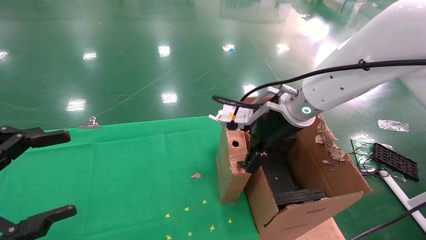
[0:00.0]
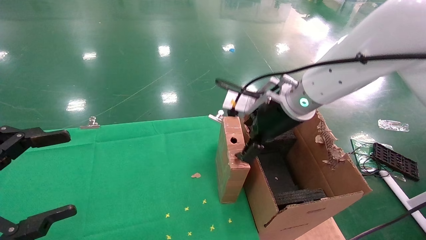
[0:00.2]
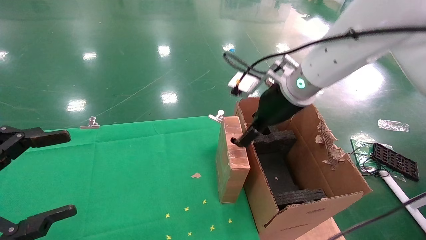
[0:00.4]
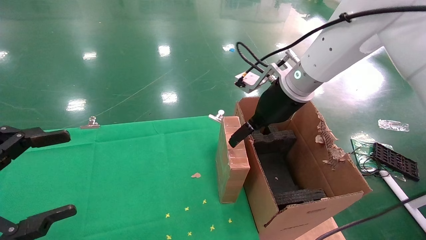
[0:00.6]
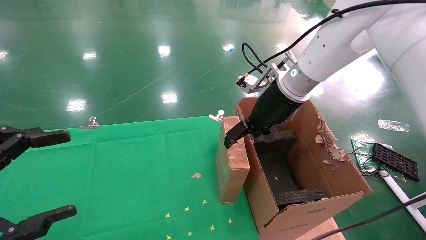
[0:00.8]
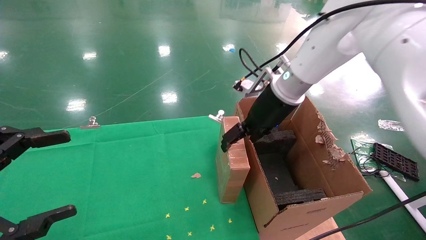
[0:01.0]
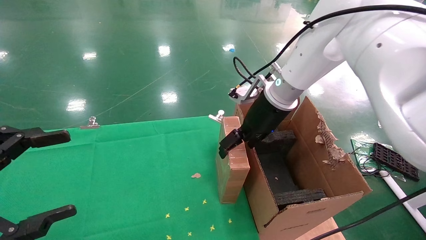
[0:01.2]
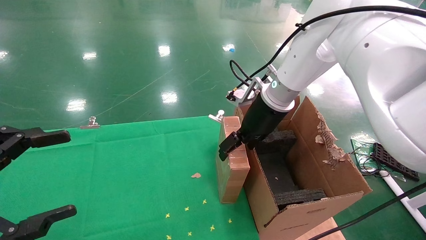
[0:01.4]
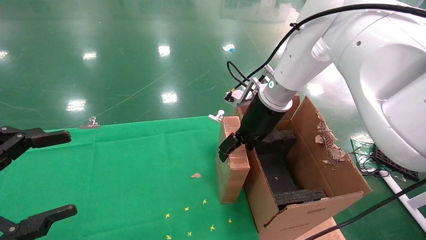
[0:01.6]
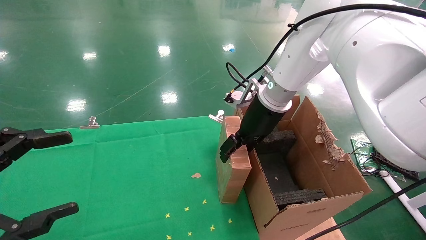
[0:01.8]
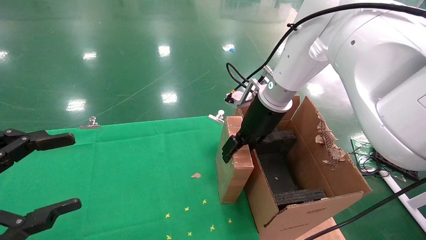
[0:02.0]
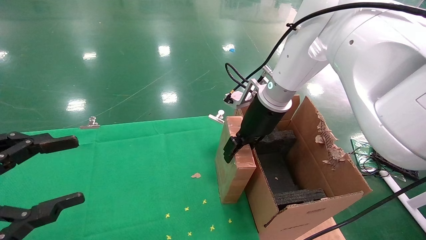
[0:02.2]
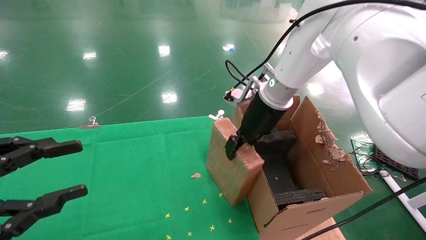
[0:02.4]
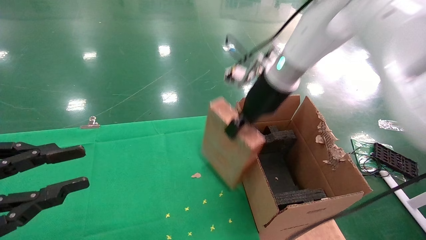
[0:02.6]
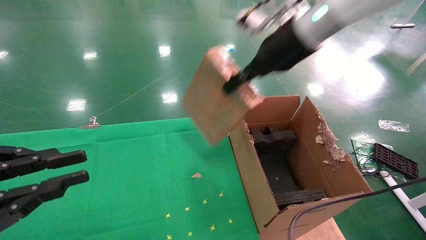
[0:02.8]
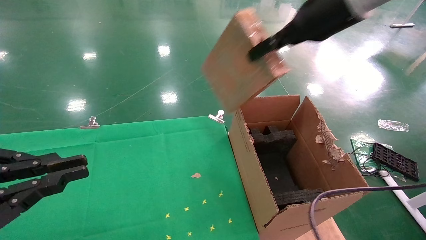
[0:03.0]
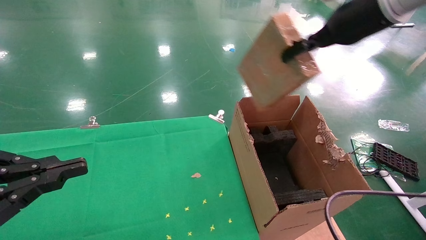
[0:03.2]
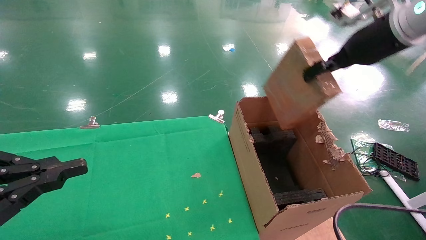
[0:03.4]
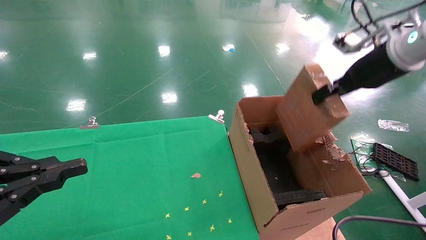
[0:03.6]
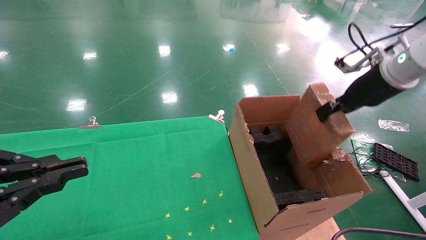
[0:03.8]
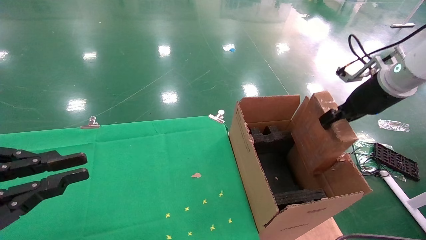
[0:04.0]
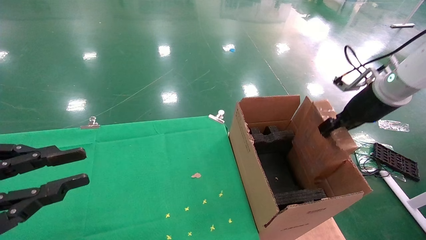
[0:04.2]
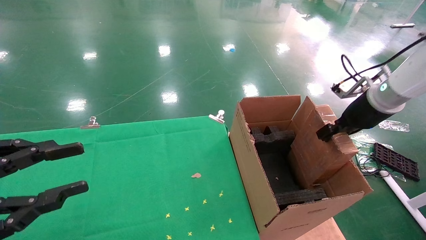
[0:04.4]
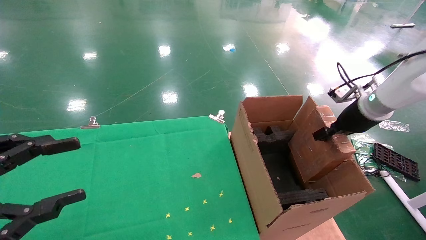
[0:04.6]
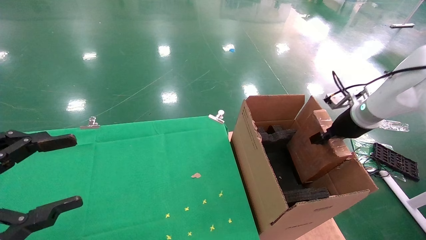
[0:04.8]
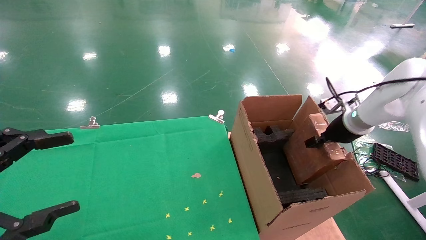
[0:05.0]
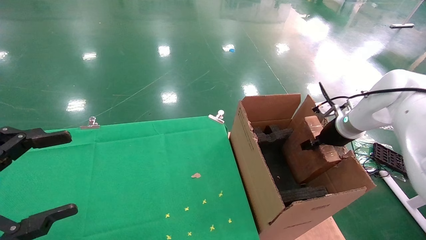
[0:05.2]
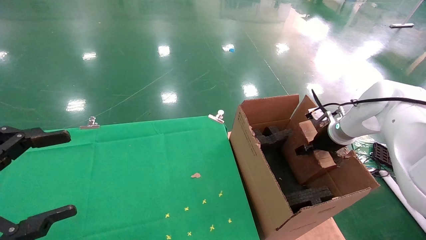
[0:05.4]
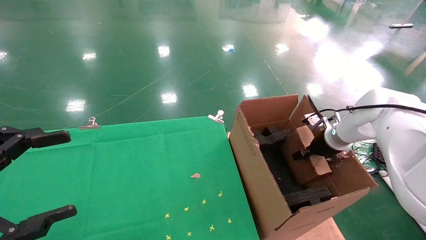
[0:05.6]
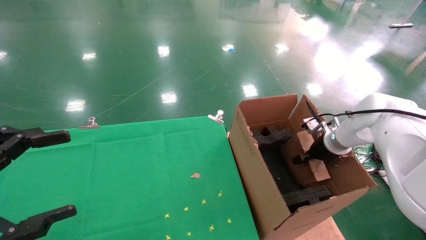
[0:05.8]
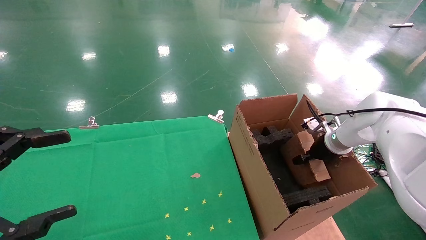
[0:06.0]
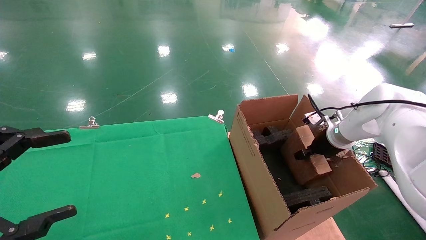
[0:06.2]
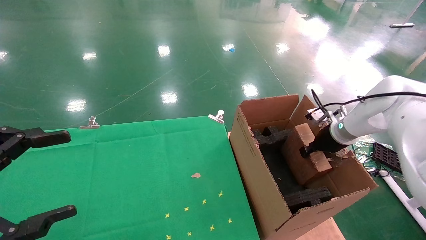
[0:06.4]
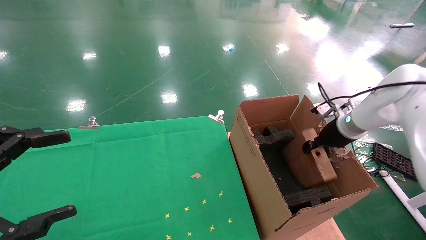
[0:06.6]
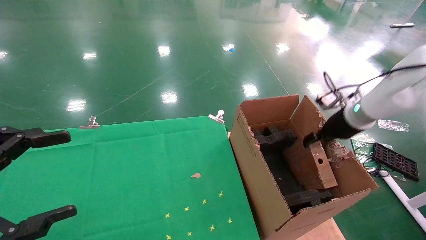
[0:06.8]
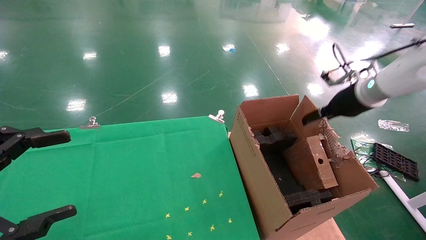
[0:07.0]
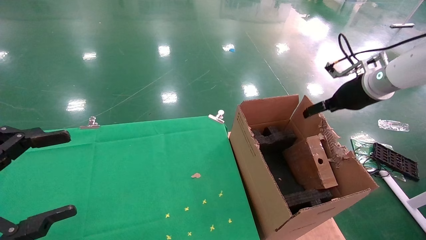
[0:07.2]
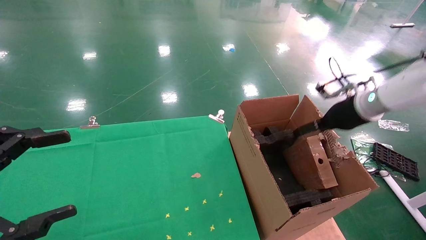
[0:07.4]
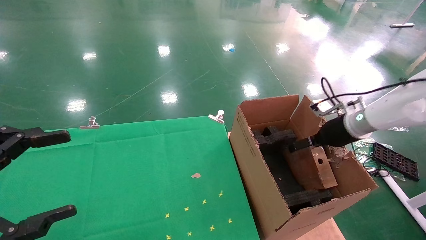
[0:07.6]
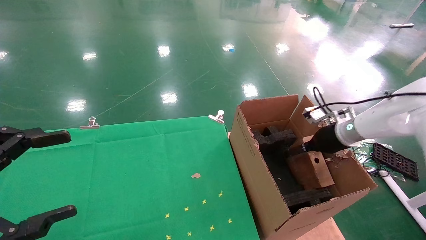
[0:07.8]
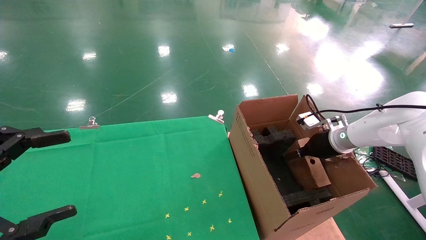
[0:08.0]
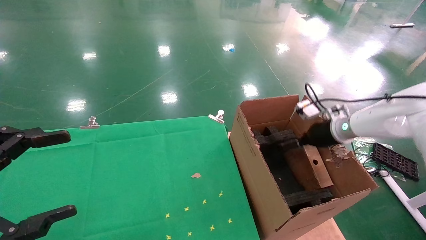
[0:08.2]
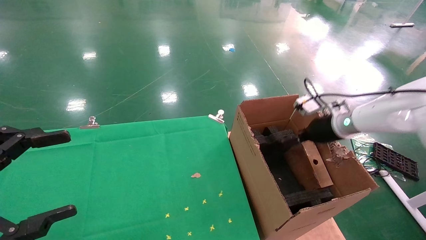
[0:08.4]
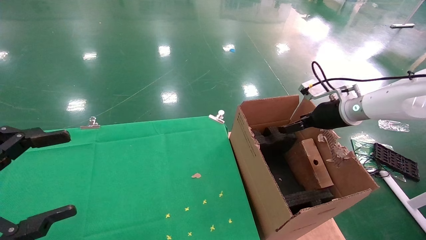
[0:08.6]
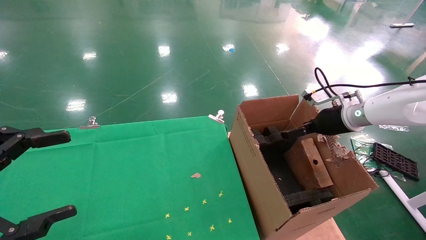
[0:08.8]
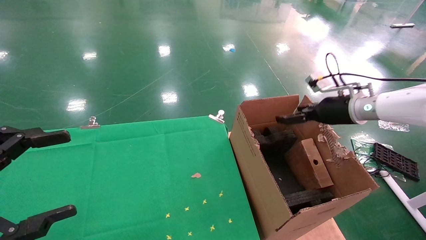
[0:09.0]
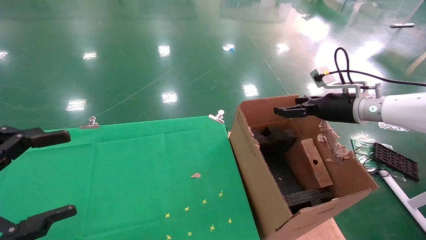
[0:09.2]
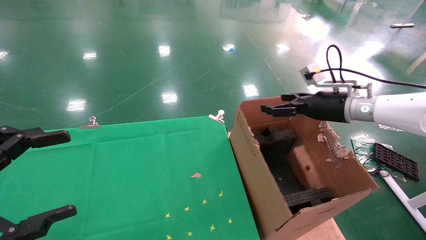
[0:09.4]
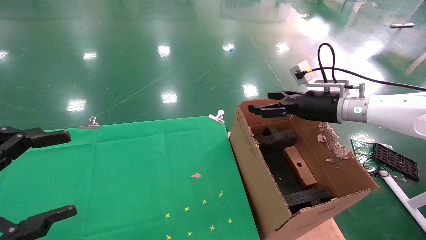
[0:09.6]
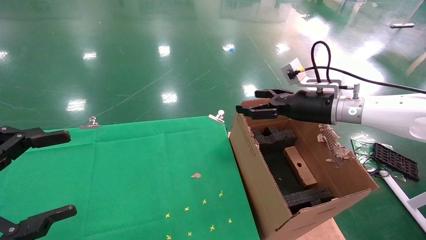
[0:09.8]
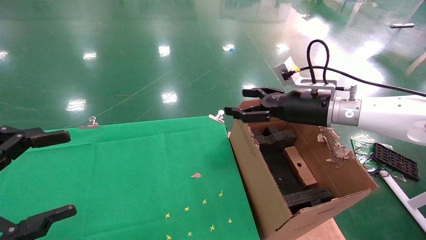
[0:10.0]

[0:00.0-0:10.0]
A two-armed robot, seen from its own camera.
Task of the whole recording: using a robotic arm to pick up a cardboard box and palace it the carton.
Step, 0.0 to 2.4 s: Pick up the mouse and the power cord paper box.
Step, 2.6 to 9.2 s: Place the mouse and the power cord paper box into the container.
0.0 to 1.4 s: The right gripper shifts about 5 cm forward.
1.4 to 2.8 s: The right gripper shifts roughly 10 cm upward, and closes its fingers. Meanwhile the left gripper closes up.
2.8 to 4.2 s: The right gripper travels to the right and downward by about 20 cm.
4.2 to 5.8 s: The left gripper opens up, while the right gripper shifts some 20 cm downward and forward.
5.8 to 7.2 s: The right gripper is displaced upward by approximately 15 cm, and opens up.
7.2 to 8.6 s: The right gripper travels downward by approximately 5 cm.
8.6 to 10.0 s: The right gripper goes roughly 10 cm to the left.

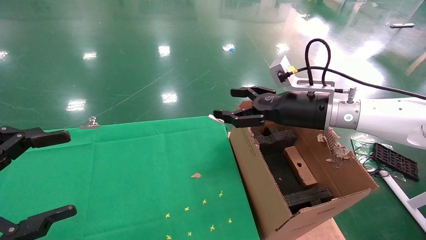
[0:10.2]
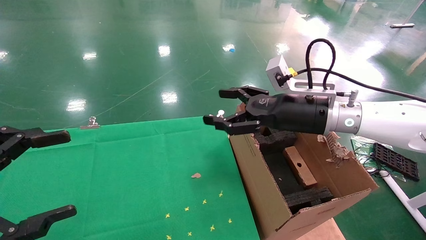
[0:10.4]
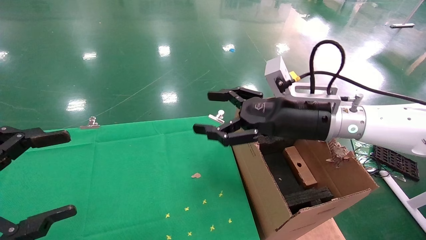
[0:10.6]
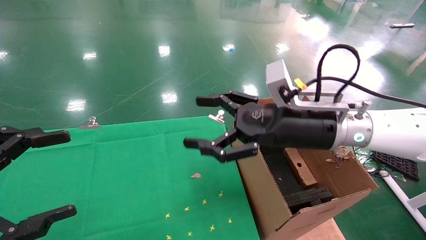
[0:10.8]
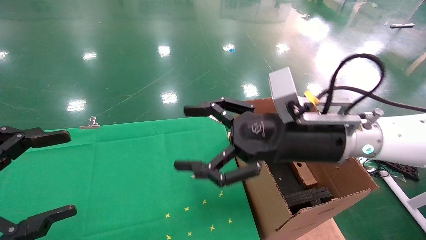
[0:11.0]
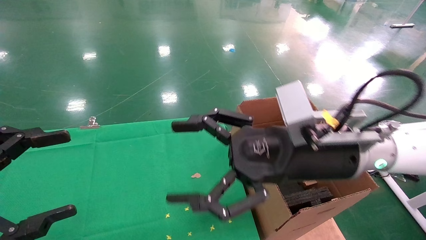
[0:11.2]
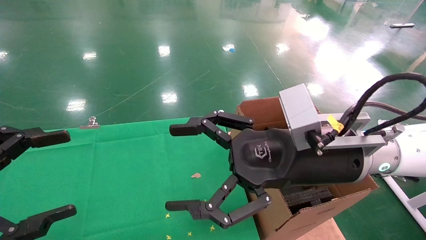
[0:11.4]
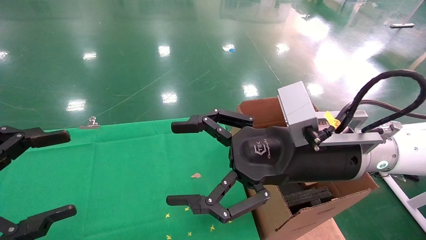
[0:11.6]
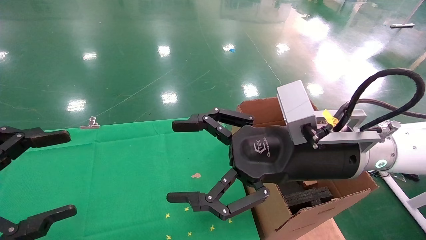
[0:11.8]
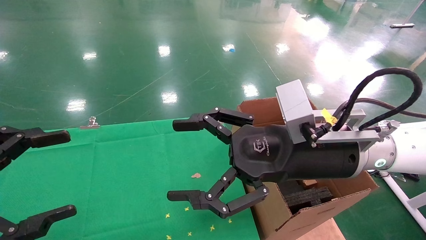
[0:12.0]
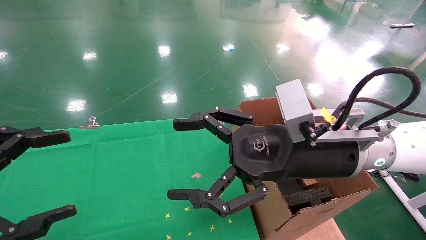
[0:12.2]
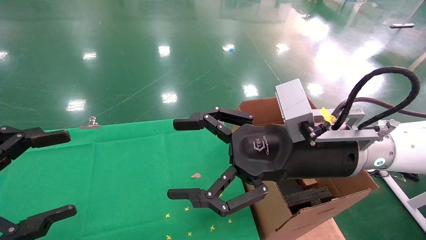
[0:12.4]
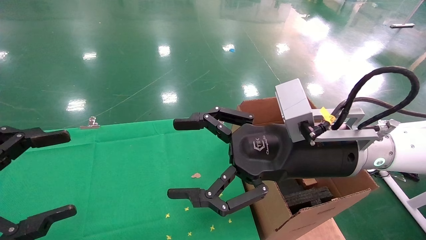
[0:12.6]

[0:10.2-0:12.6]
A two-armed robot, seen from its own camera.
Task of the whole recording: using a robotic arm to pick up a cardboard box and palace it the carton.
10.2 to 11.4 s: The right gripper heads backward and to the left, covering roughly 15 cm.
11.4 to 12.6 s: The two grippers keep their place.

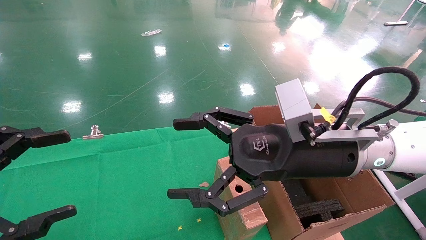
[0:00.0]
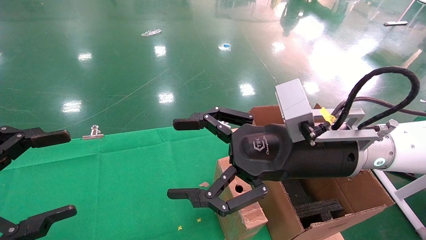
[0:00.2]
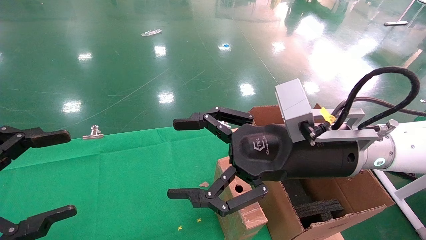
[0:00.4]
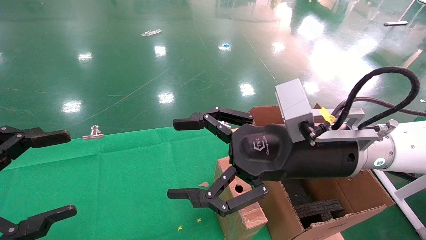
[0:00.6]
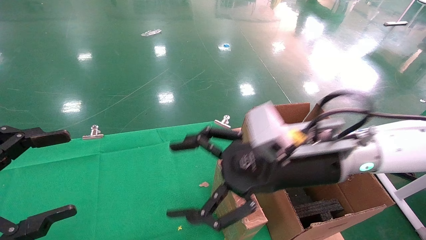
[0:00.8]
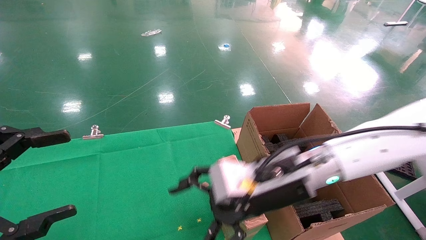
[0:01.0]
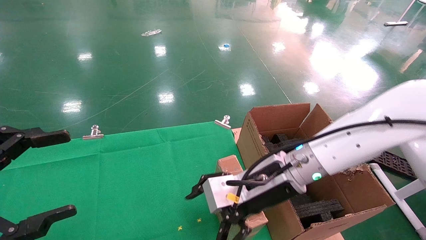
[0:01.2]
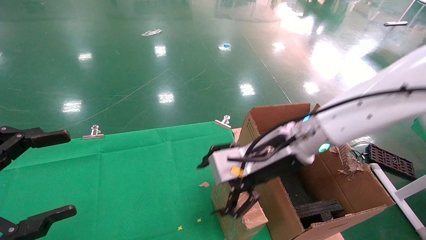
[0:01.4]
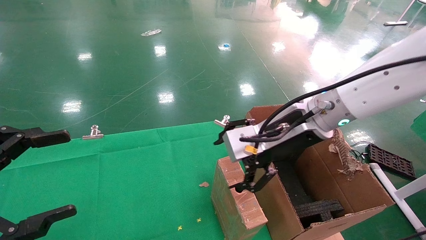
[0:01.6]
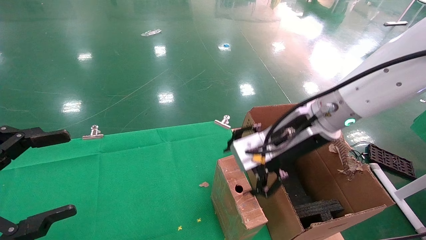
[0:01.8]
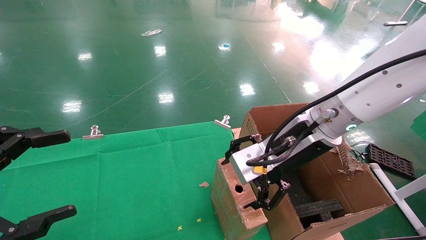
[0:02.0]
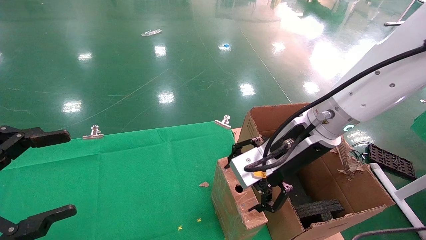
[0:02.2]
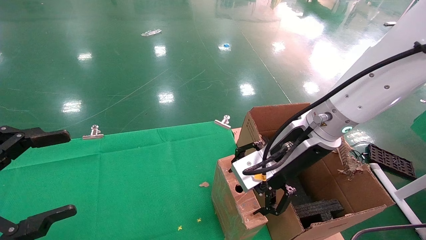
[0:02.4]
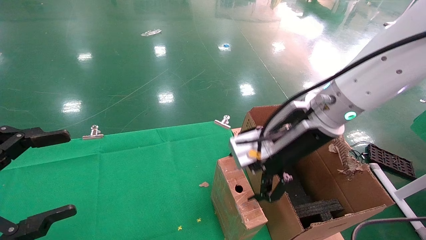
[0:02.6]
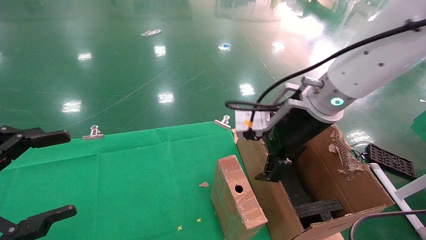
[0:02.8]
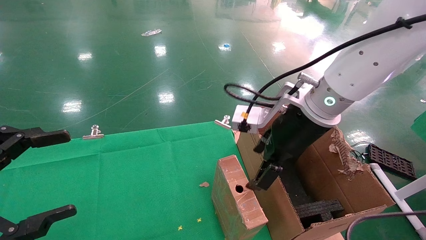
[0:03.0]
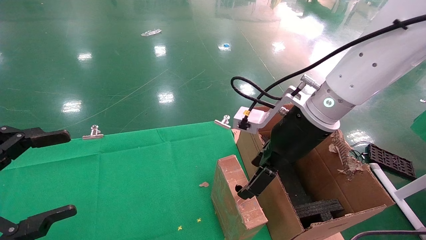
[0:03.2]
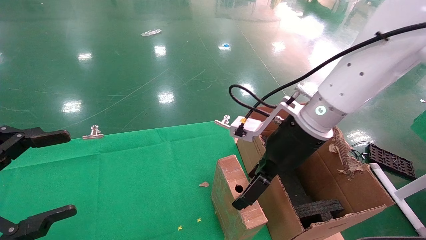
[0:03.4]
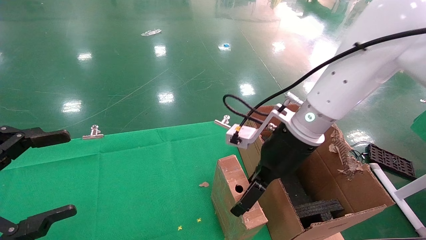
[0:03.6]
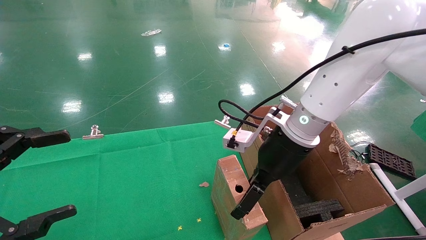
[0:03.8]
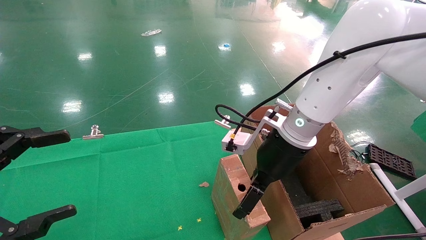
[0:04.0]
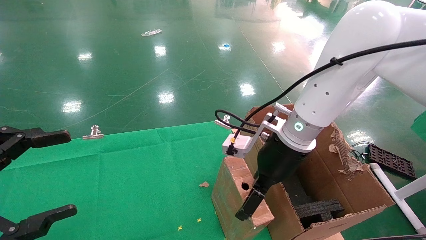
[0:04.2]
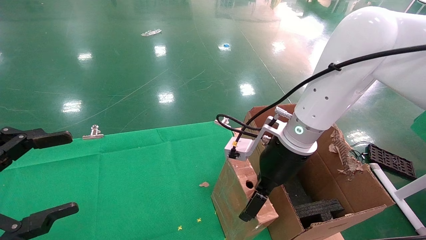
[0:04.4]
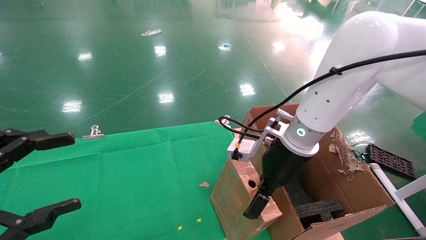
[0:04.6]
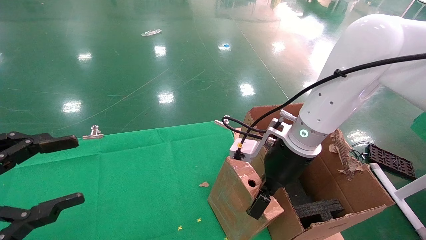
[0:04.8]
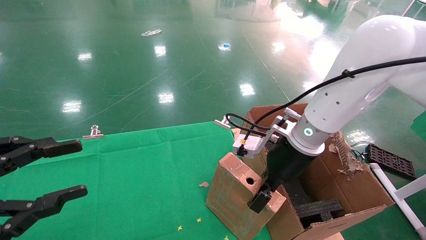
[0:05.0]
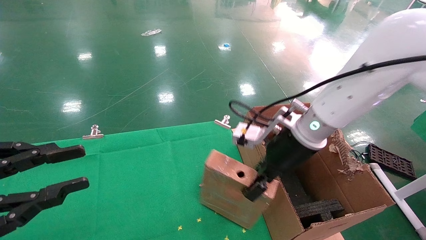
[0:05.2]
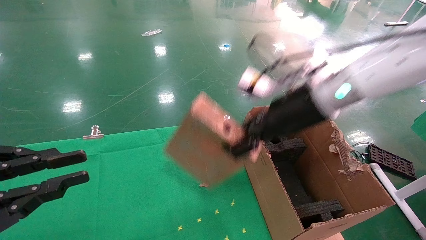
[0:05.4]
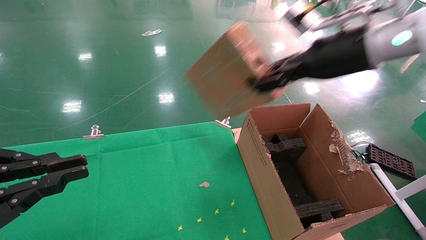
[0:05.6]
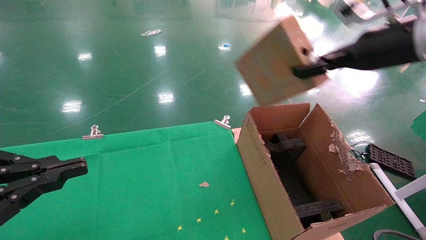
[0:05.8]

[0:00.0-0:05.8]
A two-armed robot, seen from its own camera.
Task of the whole recording: using a robotic arm to pick up a cardboard box and palace it the carton.
Step, 0.8 to 5.0 s: Pick up the mouse and the power cord paper box.
0.0 to 1.4 s: The right gripper moves forward, roughly 5 cm.
1.4 to 2.8 s: The right gripper heads upward, covering about 5 cm.
2.8 to 4.4 s: The right gripper goes about 5 cm downward.
4.4 to 5.8 s: The right gripper moves to the right and upward, approximately 25 cm, and closes up; the left gripper closes its fingers.
